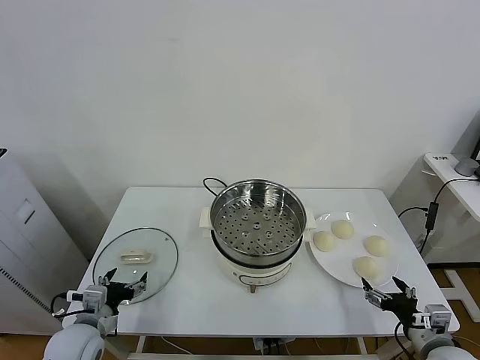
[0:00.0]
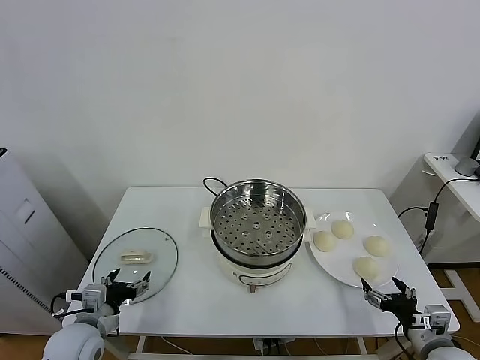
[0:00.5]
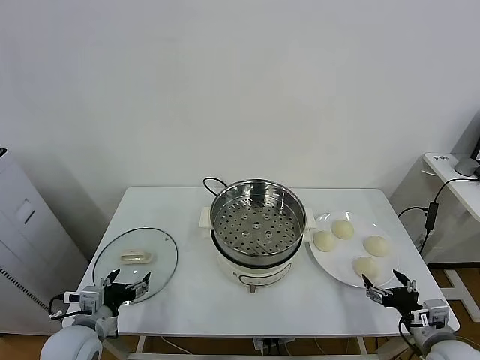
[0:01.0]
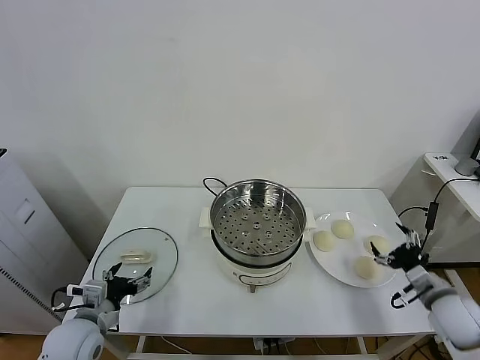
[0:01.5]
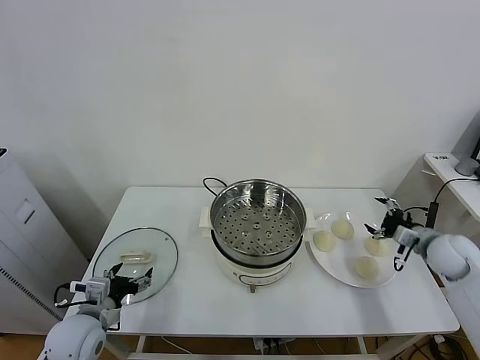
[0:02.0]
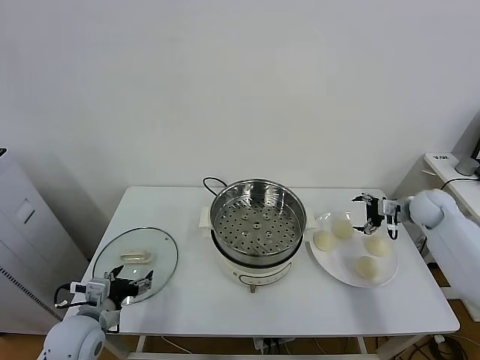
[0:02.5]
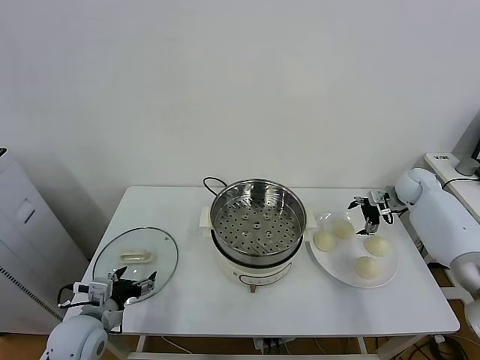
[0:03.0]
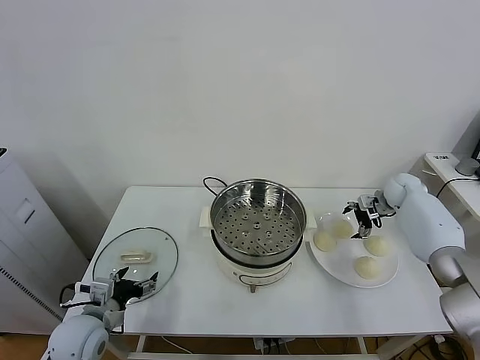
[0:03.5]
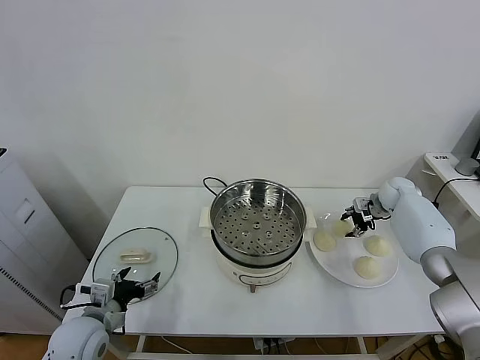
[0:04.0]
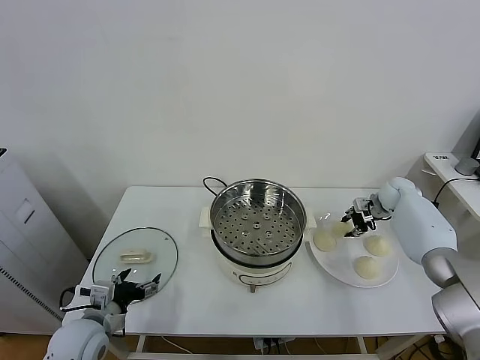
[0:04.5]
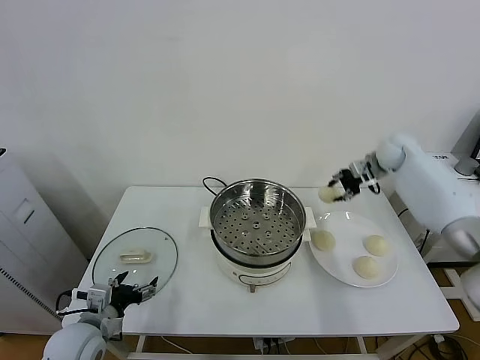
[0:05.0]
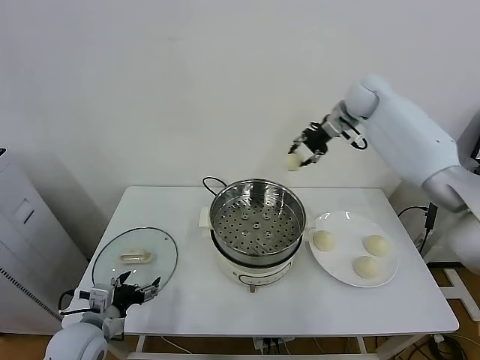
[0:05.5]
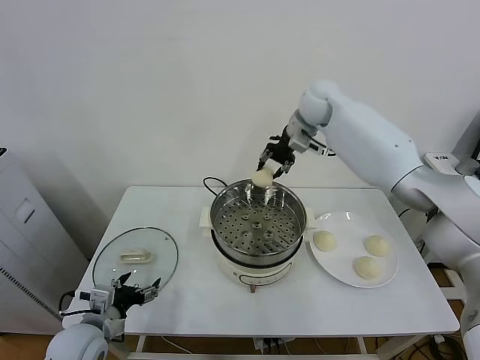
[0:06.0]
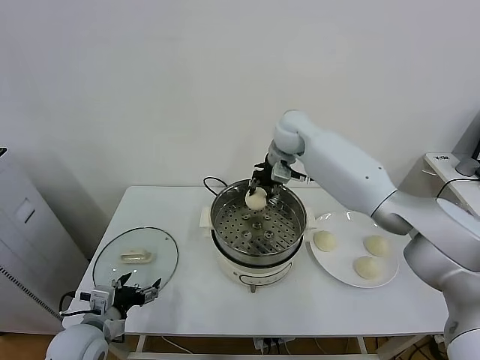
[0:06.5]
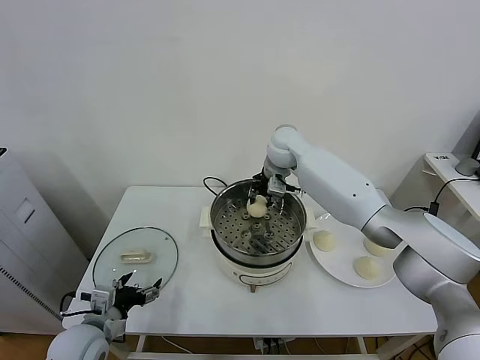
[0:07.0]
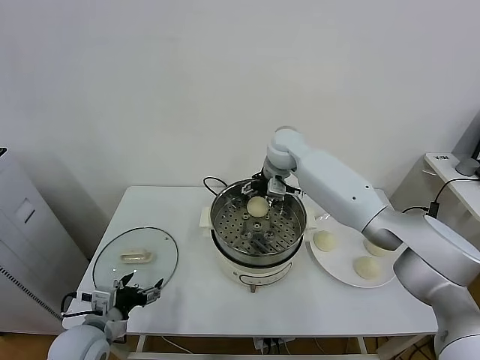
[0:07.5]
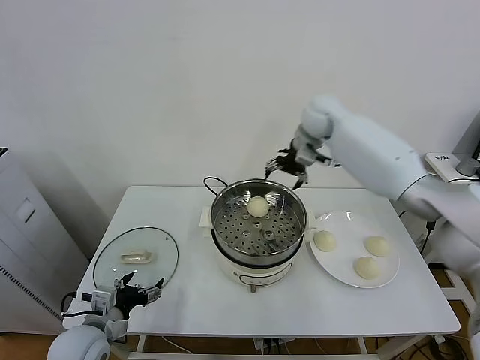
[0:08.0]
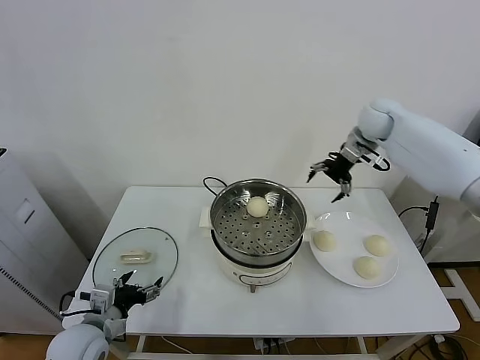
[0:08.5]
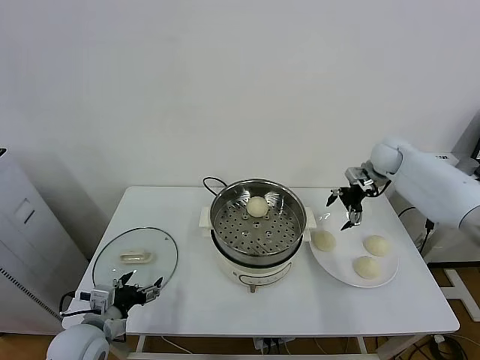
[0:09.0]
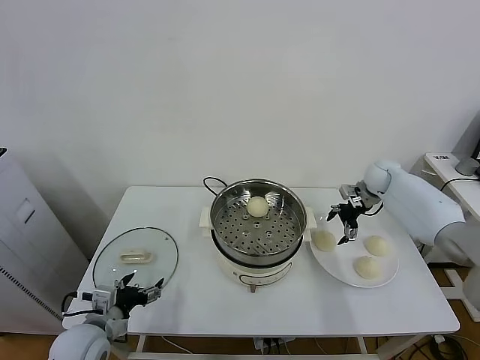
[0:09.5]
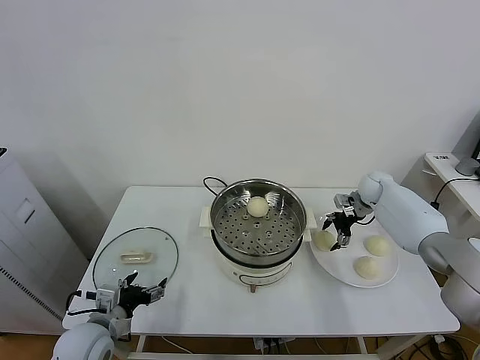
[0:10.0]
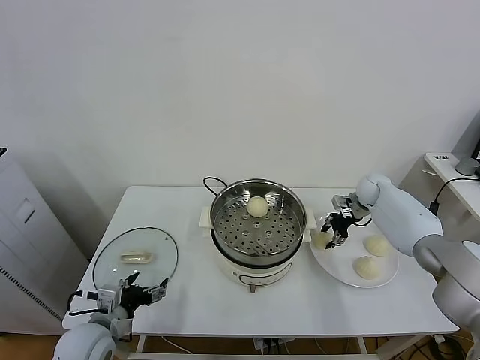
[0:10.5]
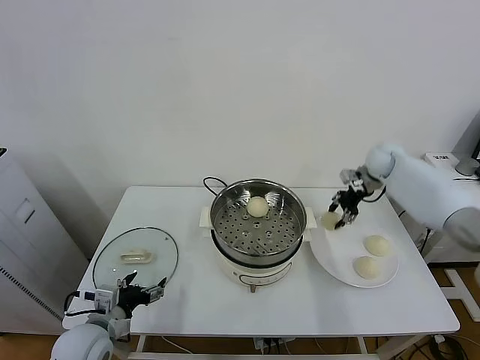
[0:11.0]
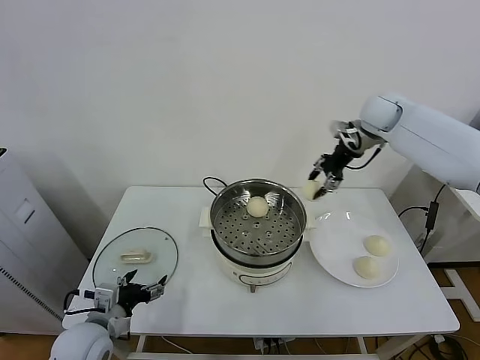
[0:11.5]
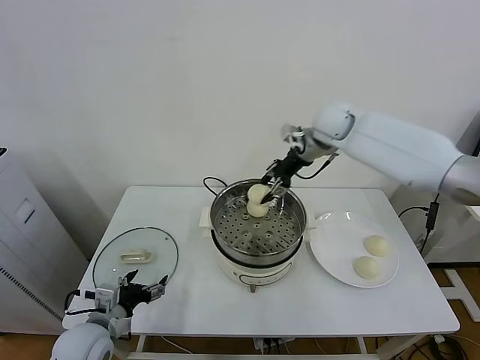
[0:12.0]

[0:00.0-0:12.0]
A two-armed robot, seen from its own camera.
Task of the whole recording: take steamed baozi put them in steamer.
Step, 0:00.0 to 0:03.5: Grasp the baozi in the plate with right gripper.
Step, 0:04.5 to 0:07.5: Place the baozi on the steamer with right gripper.
Step, 0:08.0 to 0:10.0: Grasp the baozi in the plate with right gripper.
0:02.0 to 0:04.0: The right gripper moves forward, some 15 cm, and closes.
0:04.0 to 0:06.0: The right gripper shifts about 40 cm to the left and upward.
0:06.0 to 0:08.0: The right gripper shifts approximately 5 cm to the right, and opens up.
0:08.0 to 0:10.0: The right gripper is displaced downward and to the right by approximately 30 cm.
0:10.0 to 0:12.0: The right gripper moves upward and to the left, about 30 cm, and closes its fingers.

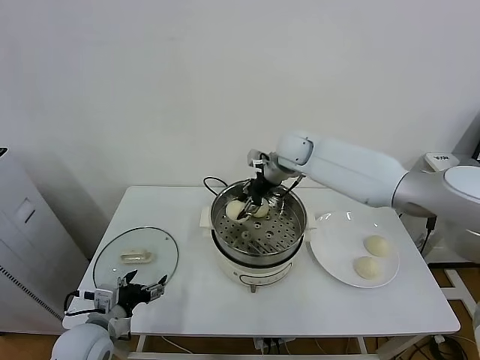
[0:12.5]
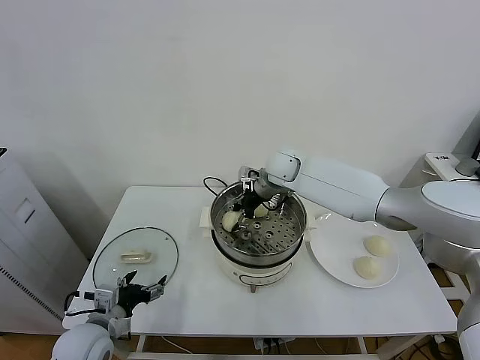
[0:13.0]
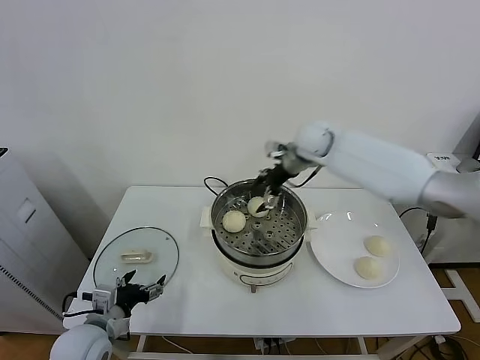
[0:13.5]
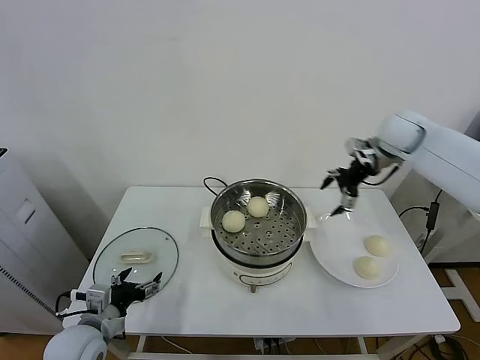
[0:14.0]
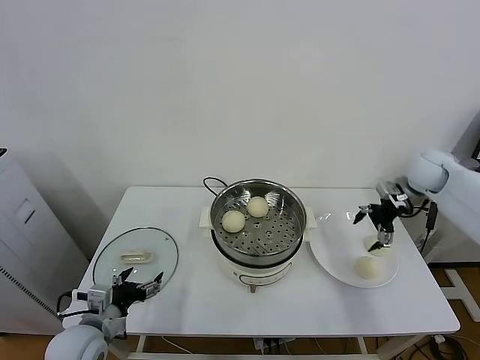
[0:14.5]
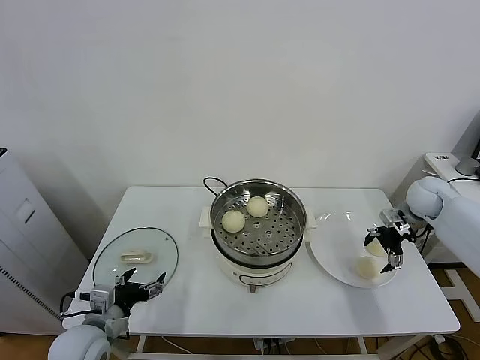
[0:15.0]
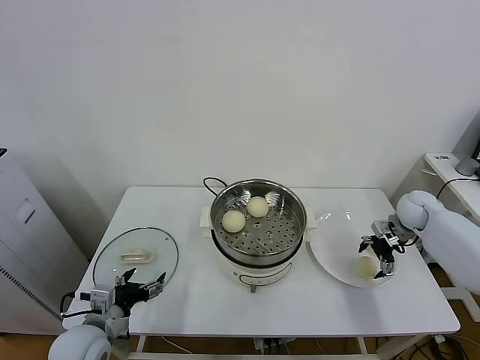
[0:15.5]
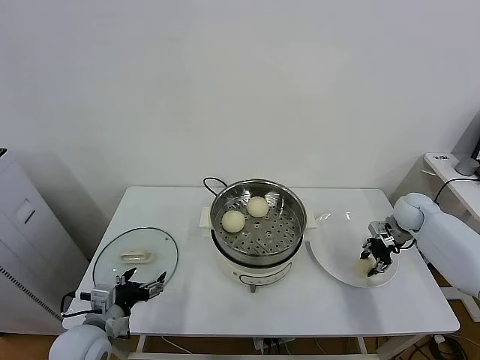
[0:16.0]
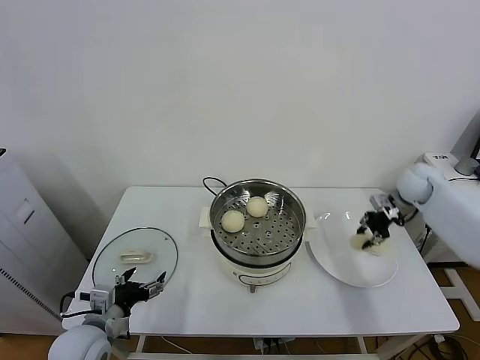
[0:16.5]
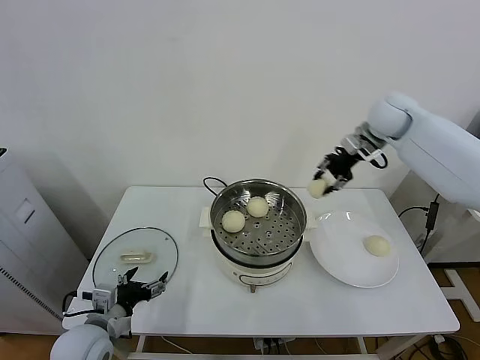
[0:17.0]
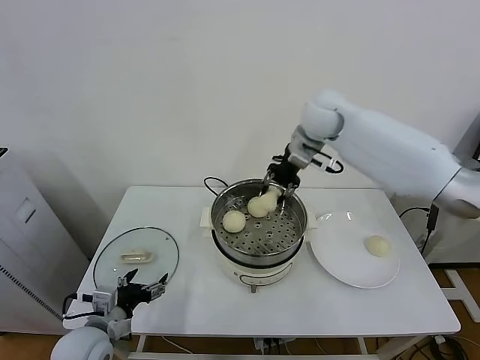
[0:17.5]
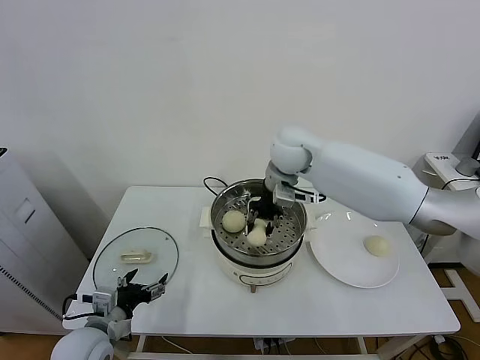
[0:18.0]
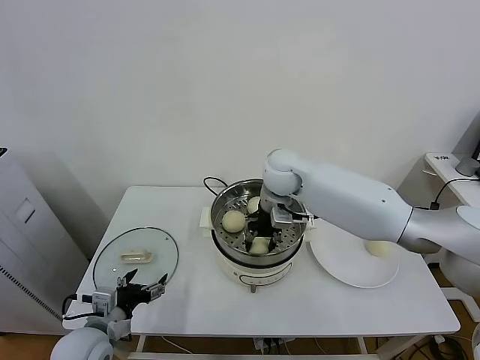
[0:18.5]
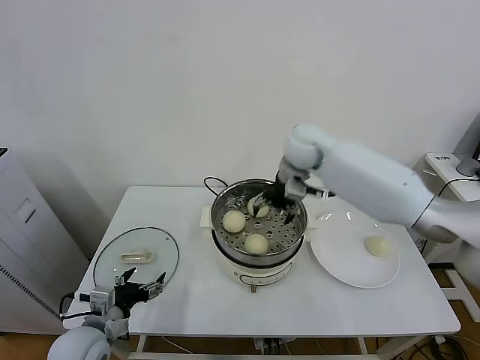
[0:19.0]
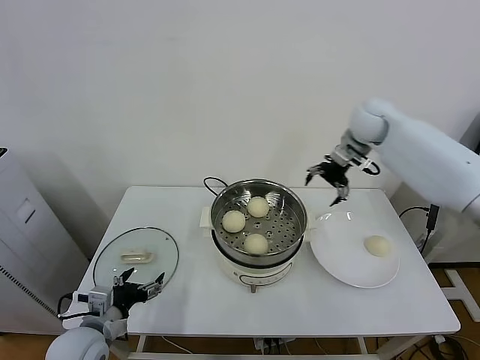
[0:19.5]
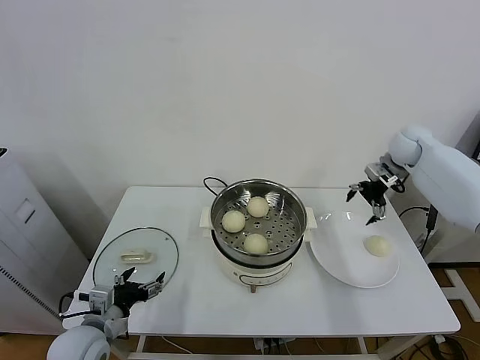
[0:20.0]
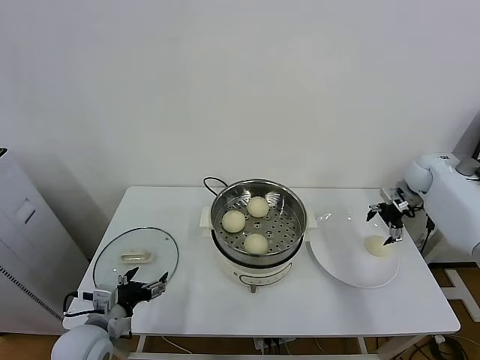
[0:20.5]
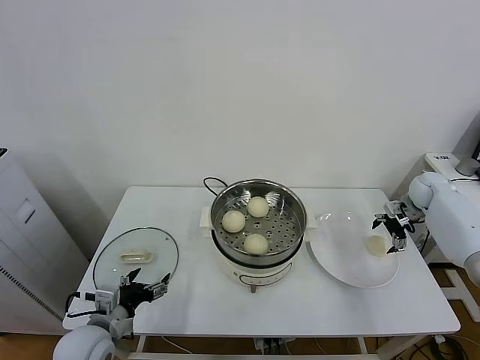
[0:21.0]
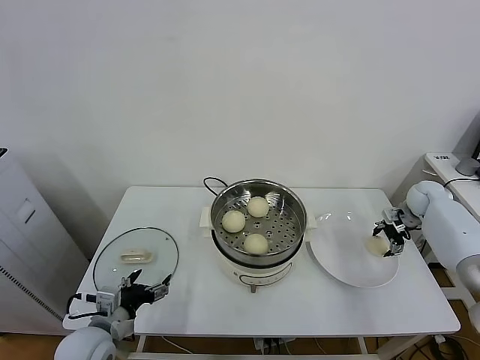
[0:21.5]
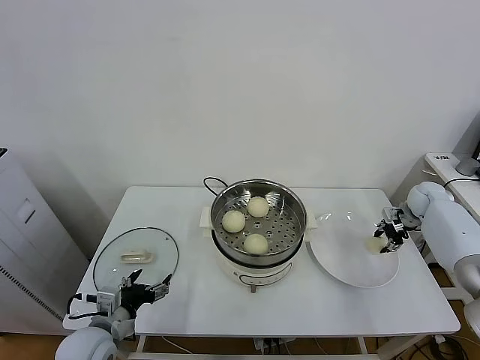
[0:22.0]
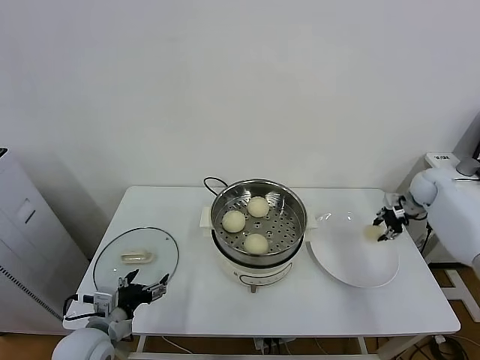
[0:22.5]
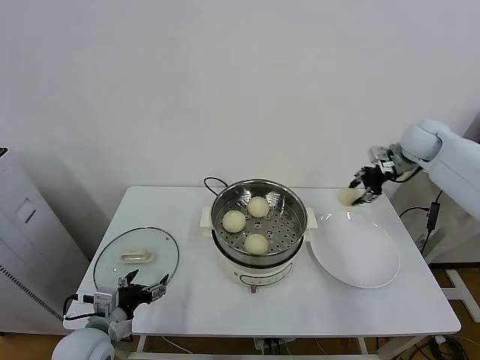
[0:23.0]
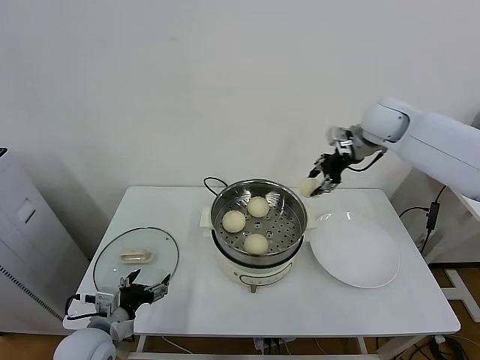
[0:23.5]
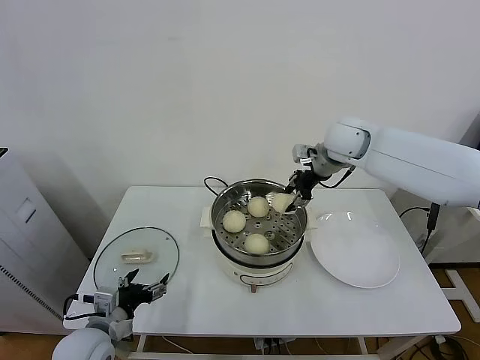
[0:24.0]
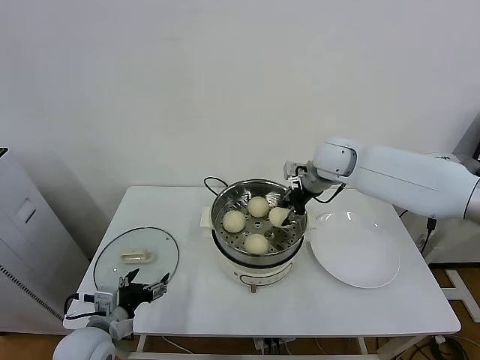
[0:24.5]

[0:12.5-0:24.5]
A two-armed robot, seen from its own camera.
Task of the whole recording: take steamed baozi put them in steamer.
Step, 0:13.5 to 0:15.5: Grasp the baozi in the plate with right gripper.
Step, 0:16.5 to 0:18.5: Place the baozi on the steamer with right gripper.
Step, 0:19.0 to 0:21.5: Grasp the baozi in the plate with right gripper.
0:12.5 to 0:14.5: The right gripper moves to the right, approximately 30 cm, and opens.
0:14.5 to 0:16.5: The right gripper reaches roughly 15 cm downward, then returns, and closes its fingers.
0:16.5 to 0:18.5: The right gripper travels to the left by about 35 cm, and opens its fingers.
0:18.5 to 0:20.5: The right gripper is displaced to the right by some 40 cm, and opens its fingers.
0:20.5 to 0:22.5: The right gripper travels downward and back again, approximately 10 cm each way, and closes up.
0:22.5 to 0:24.5: The right gripper moves to the left, about 30 cm.

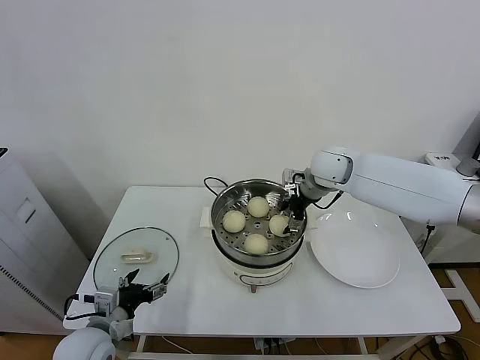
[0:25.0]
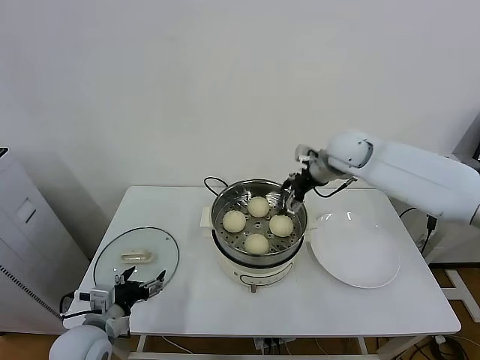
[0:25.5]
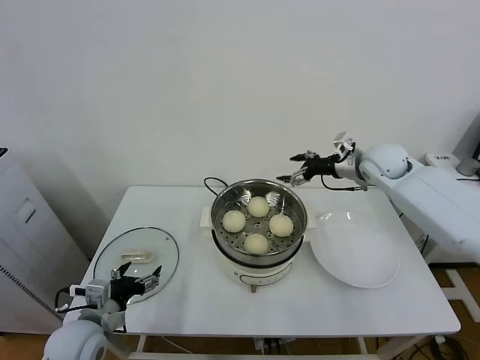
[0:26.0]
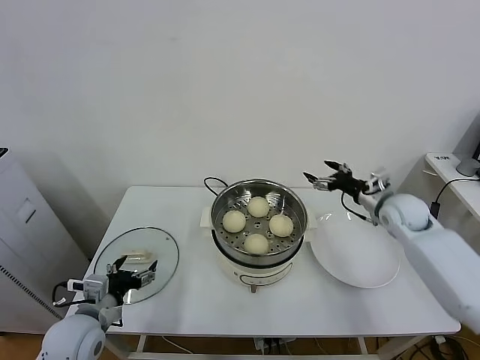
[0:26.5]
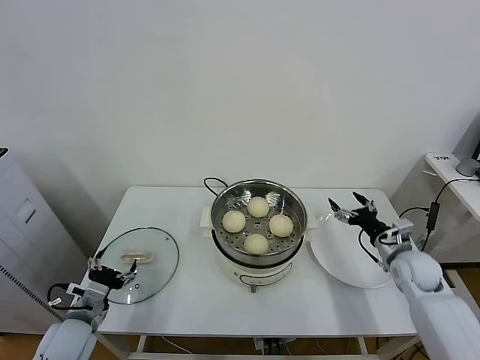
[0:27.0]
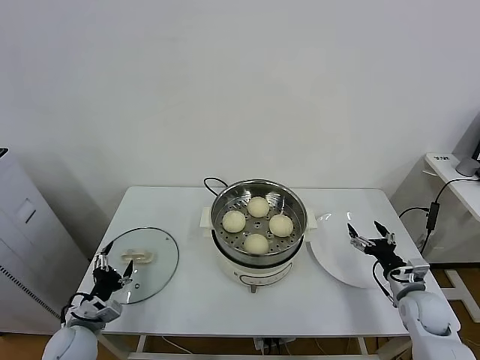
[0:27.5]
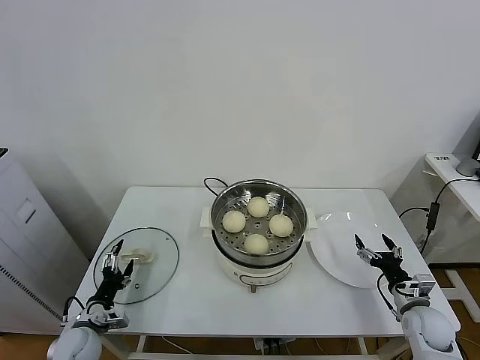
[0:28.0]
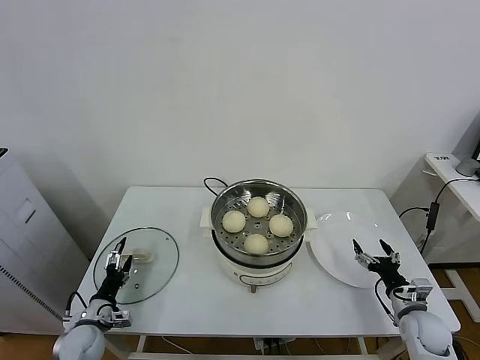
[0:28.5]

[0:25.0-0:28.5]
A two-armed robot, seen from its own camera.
Task of the whole recording: take steamed baozi put them in steamer.
0:25.0 to 0:27.0: The right gripper shifts approximately 30 cm to the right, downward and backward; the left gripper shifts about 5 cm to the left.
0:27.0 to 0:28.5: The right gripper heads downward and backward, covering approximately 15 cm. The left gripper goes about 10 cm downward.
